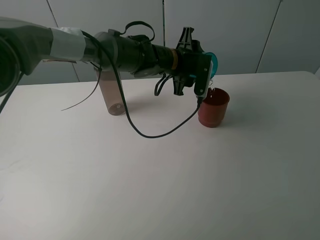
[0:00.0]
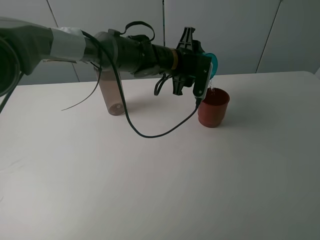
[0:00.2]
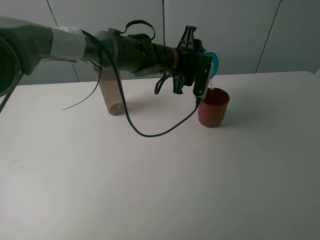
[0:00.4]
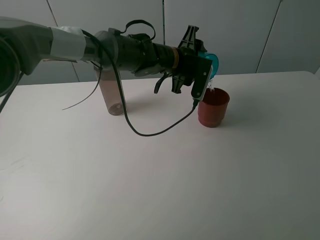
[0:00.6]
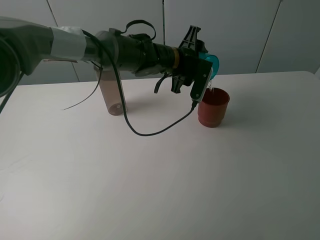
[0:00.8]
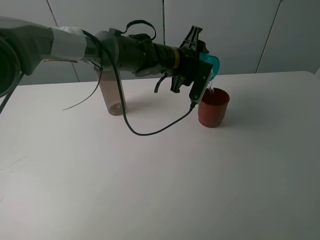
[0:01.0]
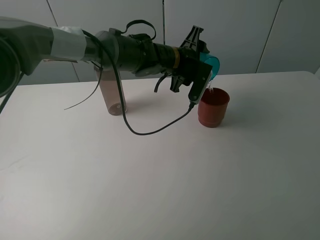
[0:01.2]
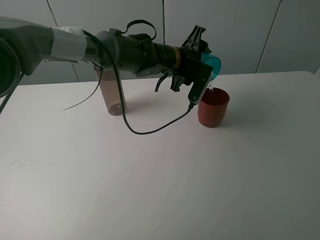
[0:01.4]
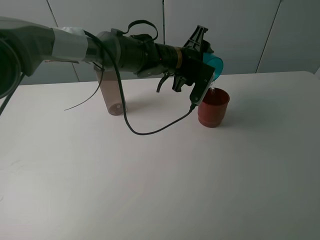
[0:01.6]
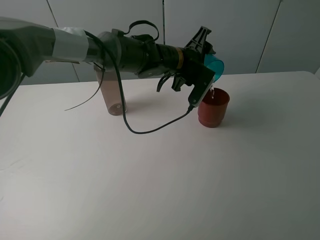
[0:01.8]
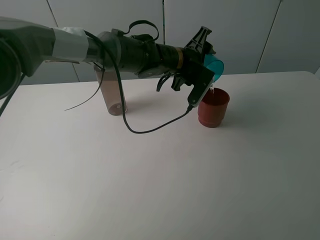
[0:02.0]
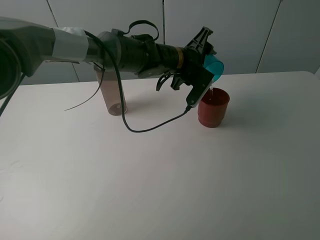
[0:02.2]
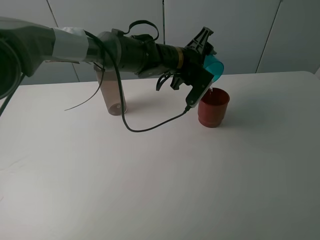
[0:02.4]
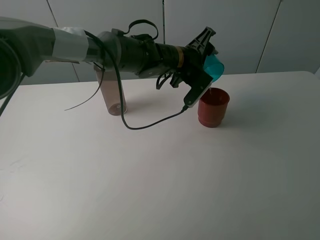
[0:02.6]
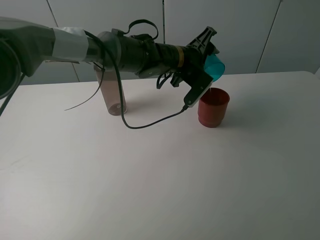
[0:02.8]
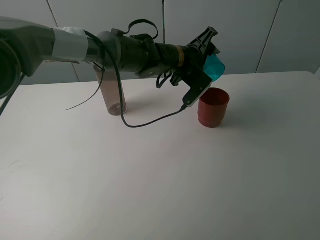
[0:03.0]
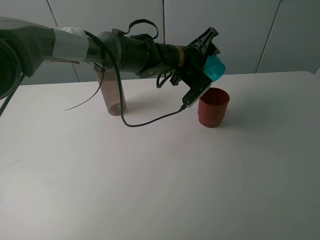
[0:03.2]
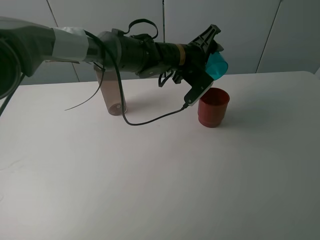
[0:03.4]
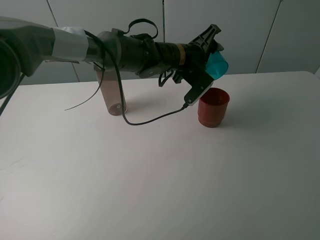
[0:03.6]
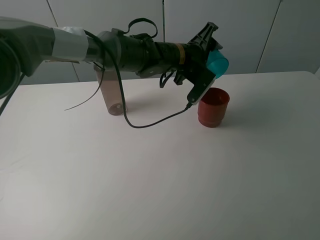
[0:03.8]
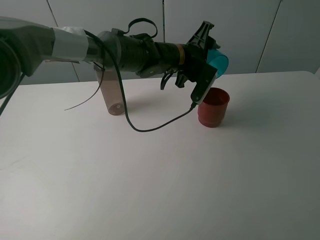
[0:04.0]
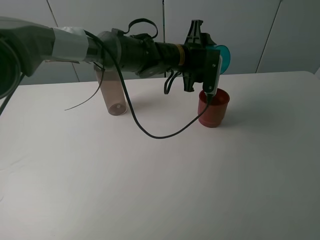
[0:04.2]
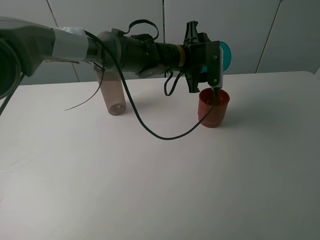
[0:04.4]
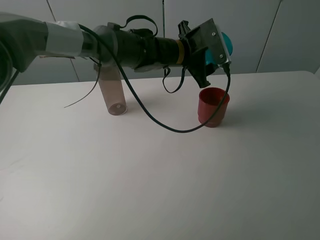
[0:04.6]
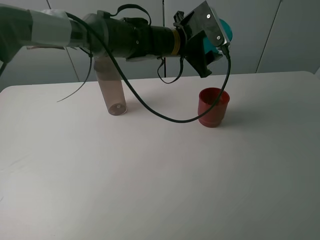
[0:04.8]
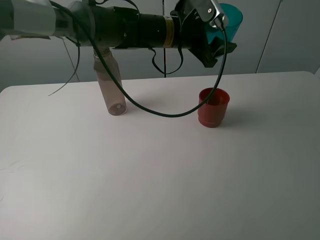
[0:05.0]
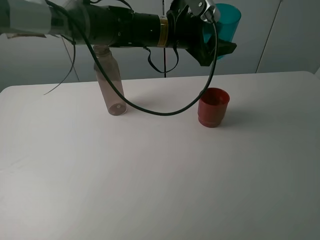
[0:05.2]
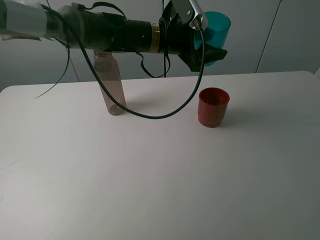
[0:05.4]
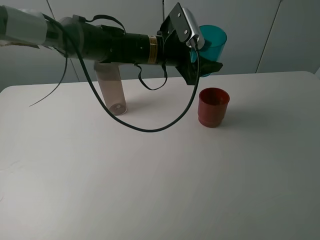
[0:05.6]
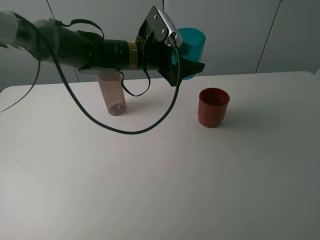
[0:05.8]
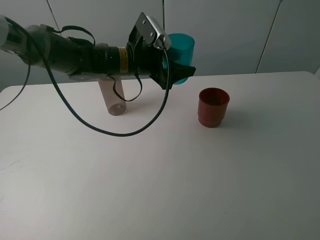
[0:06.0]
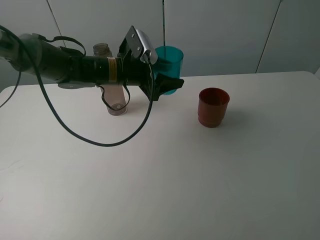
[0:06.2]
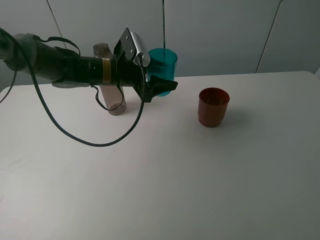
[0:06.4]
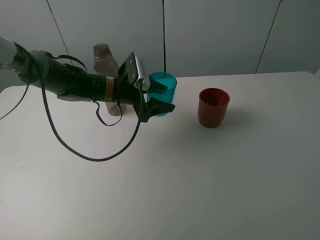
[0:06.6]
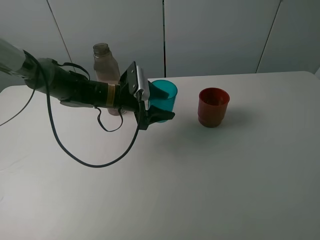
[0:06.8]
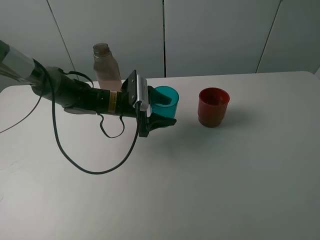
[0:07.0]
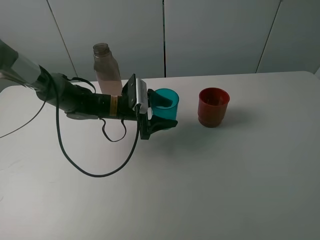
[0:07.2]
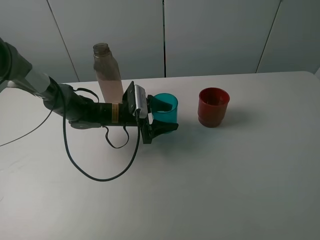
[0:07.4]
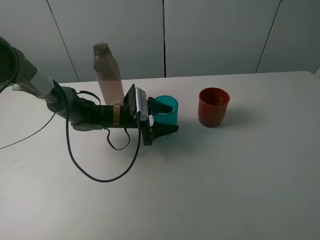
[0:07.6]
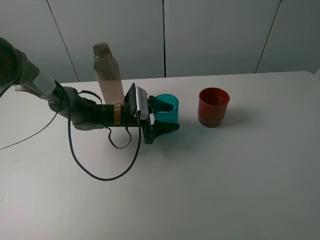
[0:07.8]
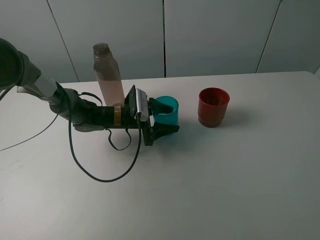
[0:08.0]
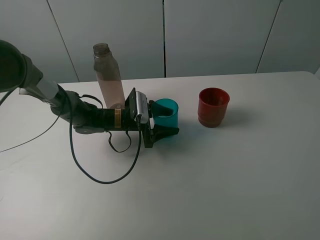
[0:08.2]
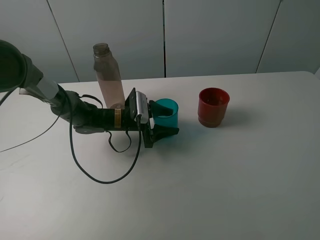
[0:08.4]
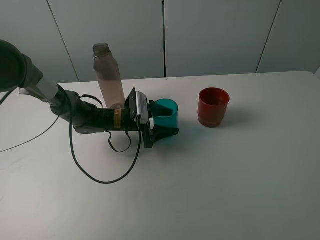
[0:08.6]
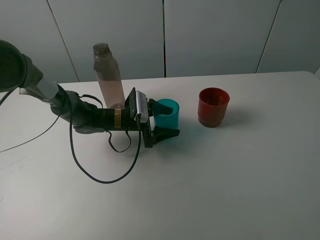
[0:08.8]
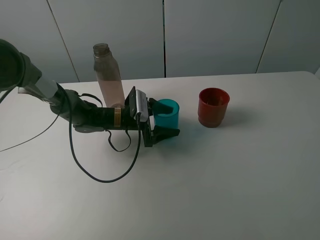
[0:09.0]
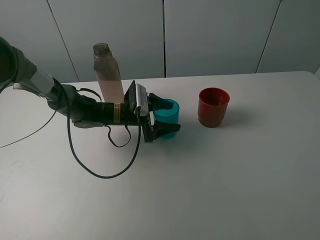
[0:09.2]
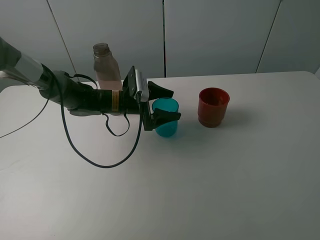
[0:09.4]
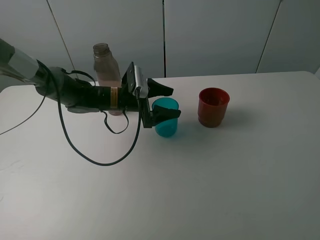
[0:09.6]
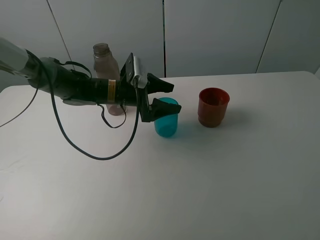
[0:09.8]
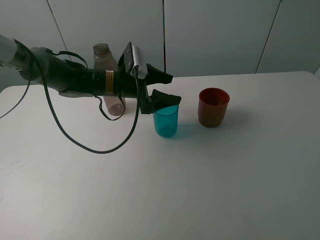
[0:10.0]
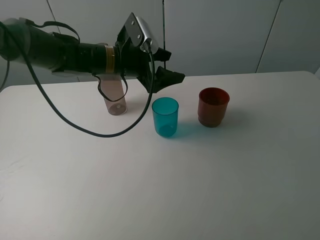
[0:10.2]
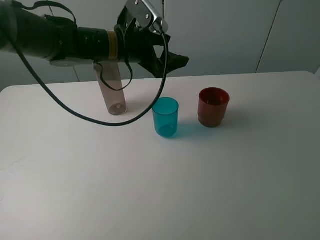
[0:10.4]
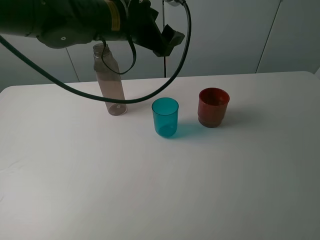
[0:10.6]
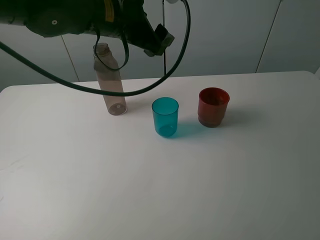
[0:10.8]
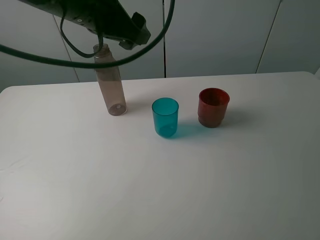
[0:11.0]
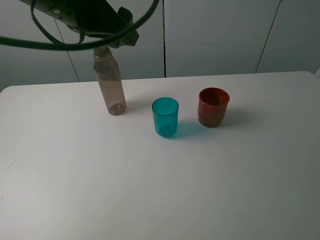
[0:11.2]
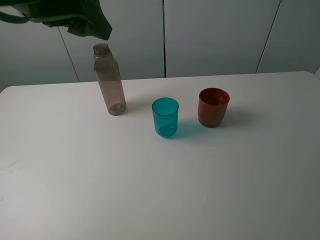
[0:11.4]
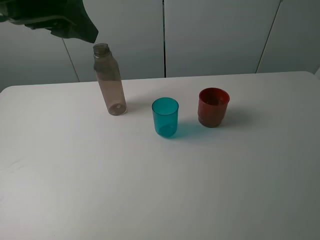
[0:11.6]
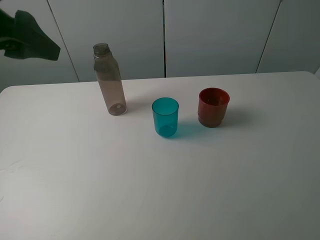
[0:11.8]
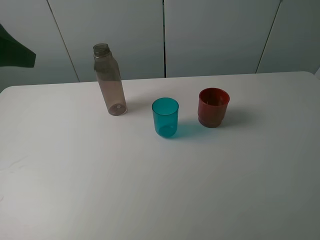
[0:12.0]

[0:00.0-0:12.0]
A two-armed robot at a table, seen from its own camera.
Task of the whole recording: pick up the bottle and pour water into the cup, then pick up the cup containing water and pour it into another cup.
Step, 0:00.0 to 0:03.2: Pour water from blue cup to red cup with the left gripper.
Step, 0:03.4 to 0:08.8: Place the blue cup with the left gripper.
0:00.0 to 0:01.6: The grippers move only a little.
0:01.6 to 0:03.0: The grippers stay close to where they were, moving slightly.
0:04.4 to 0:06.0: The left gripper moves to the left, roughly 10 cm.
0:06.0 to 0:07.6: The left gripper shifts about 15 cm downward.
0:07.6 to 0:09.0: The left gripper opens its fingers.
0:09.0 to 0:10.4: The left gripper goes roughly 20 cm upward.
0:10.4 to 0:12.0: The left gripper travels to the left, backward and upward by approximately 30 cm.

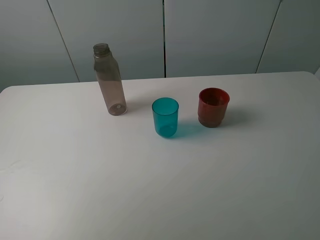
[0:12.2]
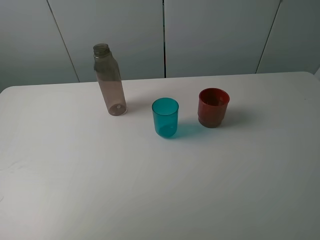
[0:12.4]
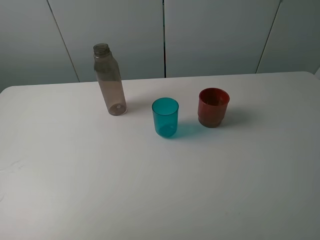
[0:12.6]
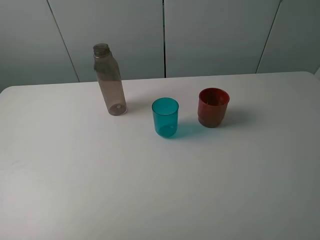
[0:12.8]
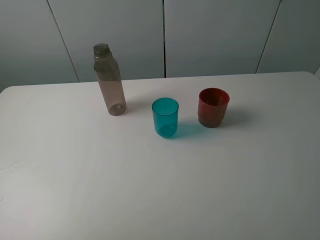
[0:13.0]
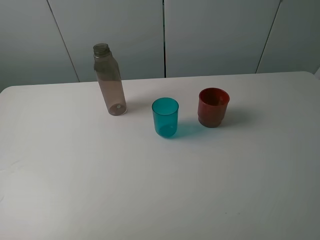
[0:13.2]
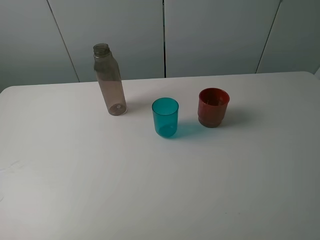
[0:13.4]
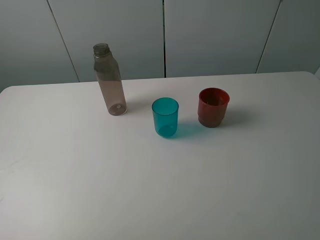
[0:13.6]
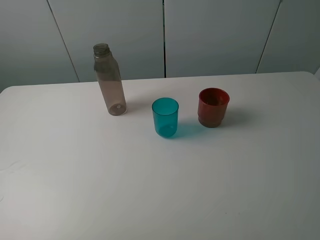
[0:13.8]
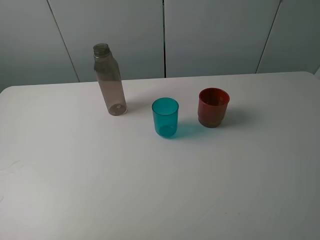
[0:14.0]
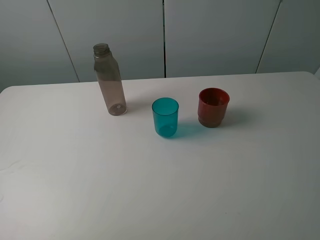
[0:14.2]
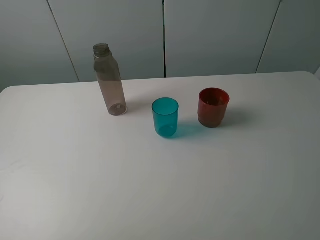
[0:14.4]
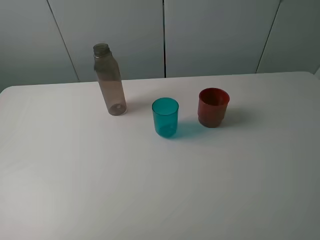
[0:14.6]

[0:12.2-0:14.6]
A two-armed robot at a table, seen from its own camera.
Task of the whole recording: pick up the bottle and pour water into the cup, then pick up the cup containing water and pour it into another cup.
0:13.4 to 0:14.6: The two grippers keep their place.
